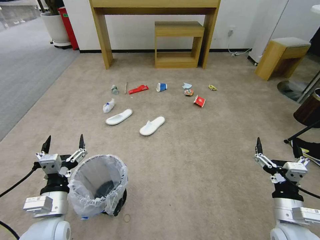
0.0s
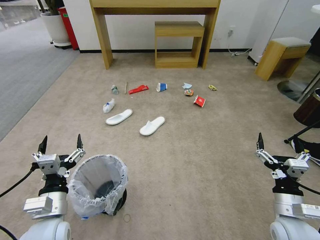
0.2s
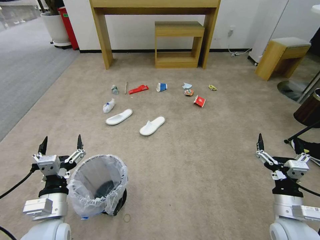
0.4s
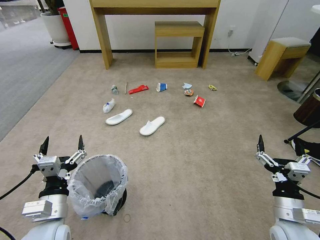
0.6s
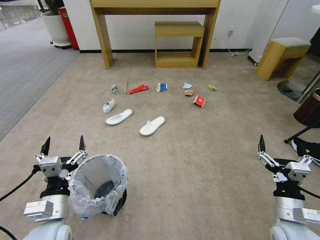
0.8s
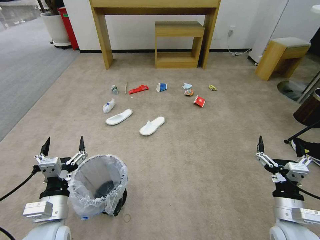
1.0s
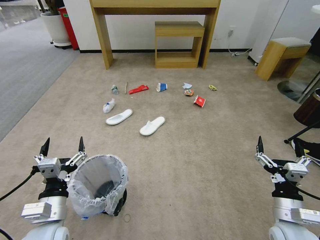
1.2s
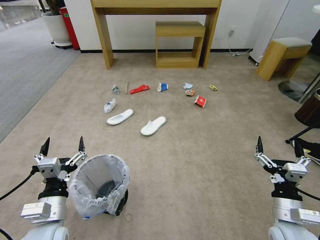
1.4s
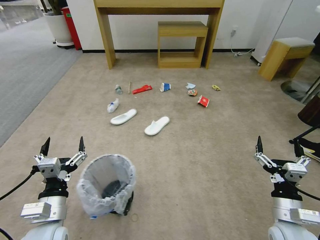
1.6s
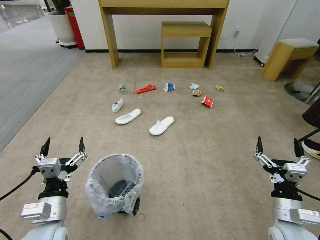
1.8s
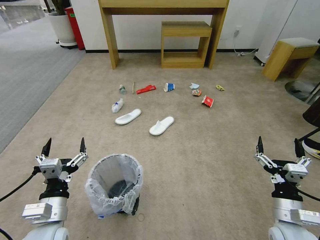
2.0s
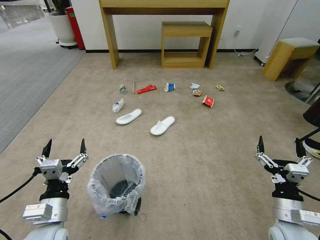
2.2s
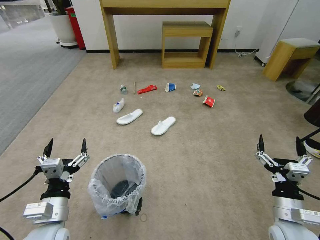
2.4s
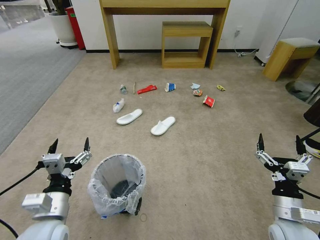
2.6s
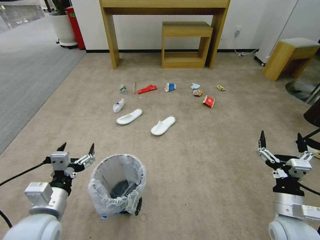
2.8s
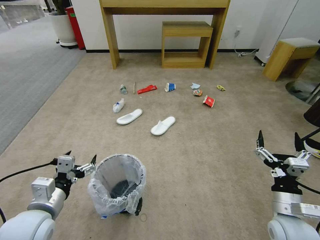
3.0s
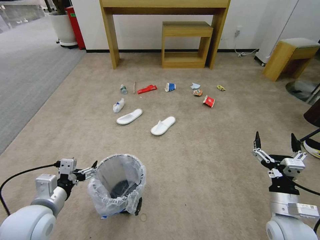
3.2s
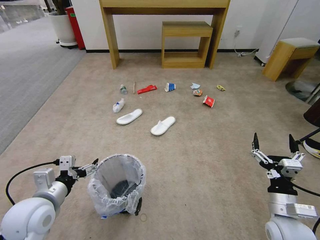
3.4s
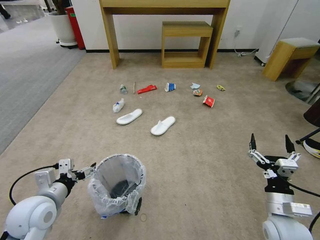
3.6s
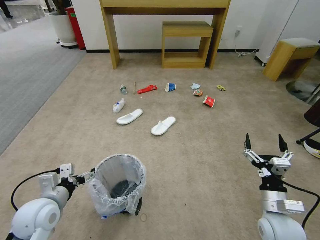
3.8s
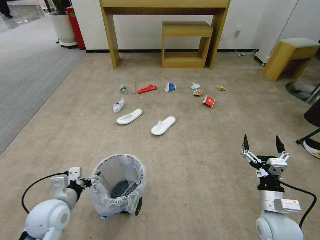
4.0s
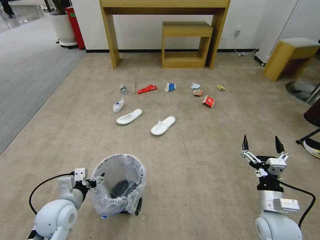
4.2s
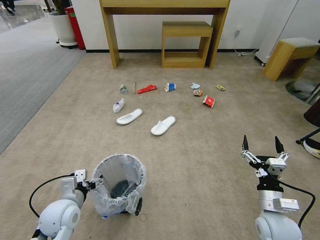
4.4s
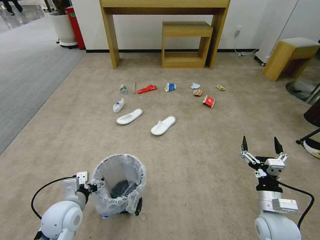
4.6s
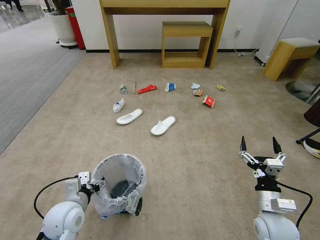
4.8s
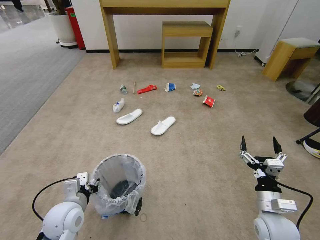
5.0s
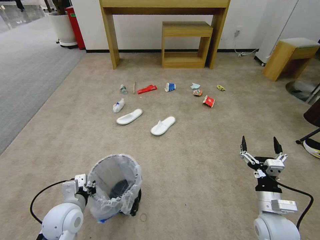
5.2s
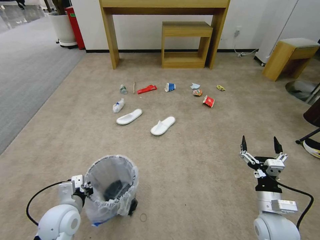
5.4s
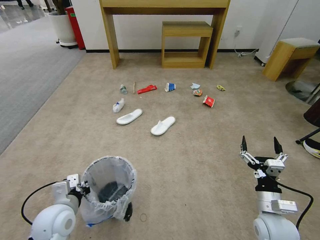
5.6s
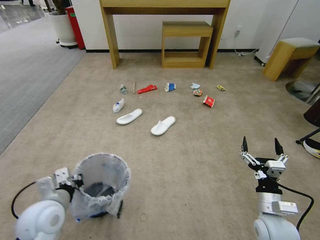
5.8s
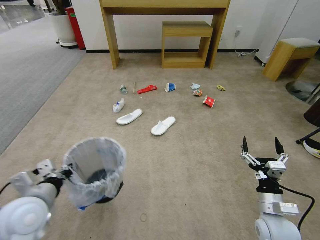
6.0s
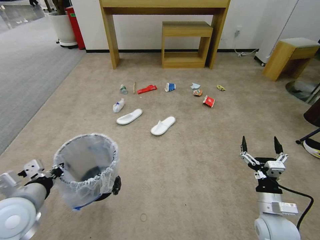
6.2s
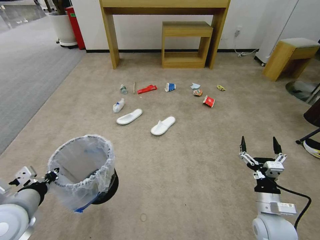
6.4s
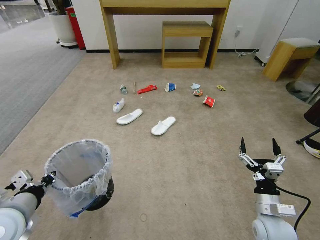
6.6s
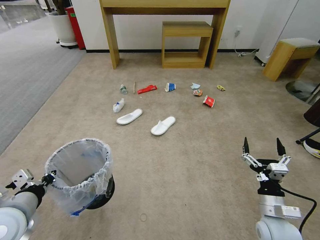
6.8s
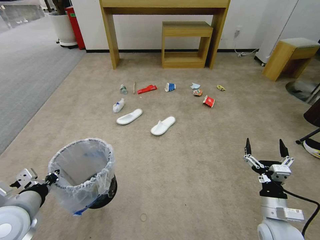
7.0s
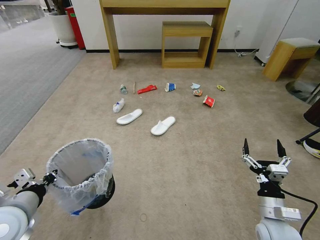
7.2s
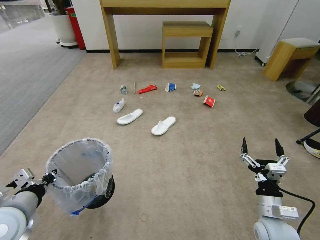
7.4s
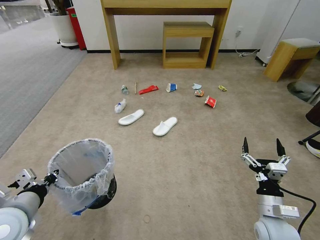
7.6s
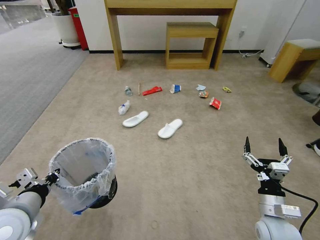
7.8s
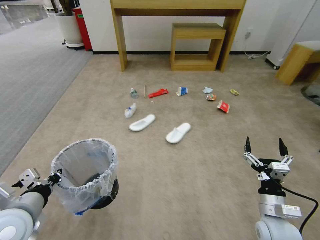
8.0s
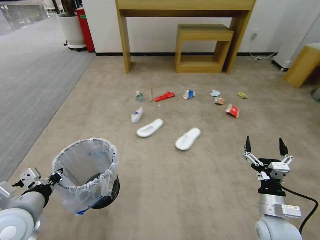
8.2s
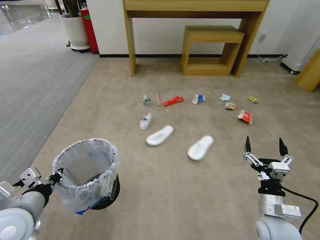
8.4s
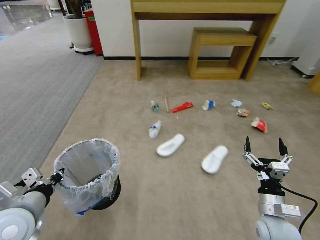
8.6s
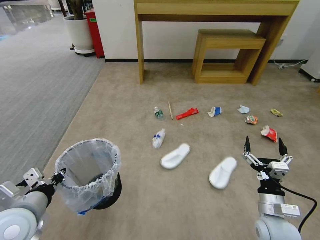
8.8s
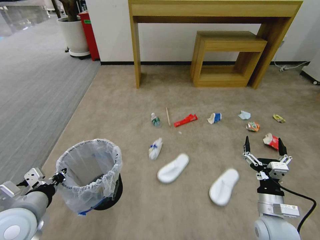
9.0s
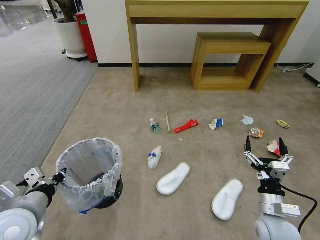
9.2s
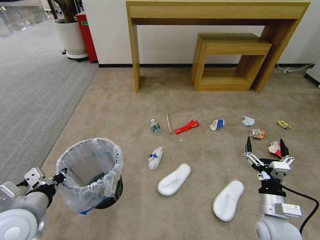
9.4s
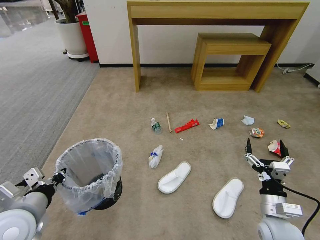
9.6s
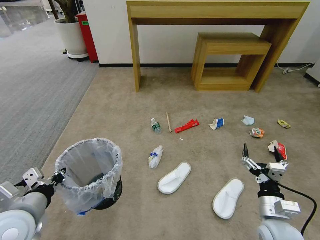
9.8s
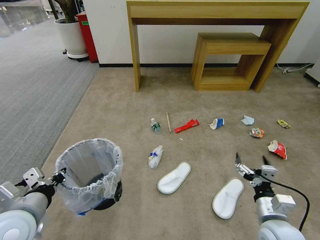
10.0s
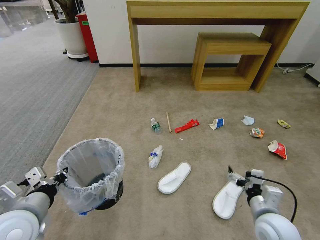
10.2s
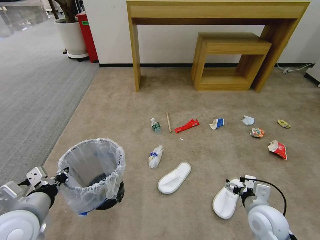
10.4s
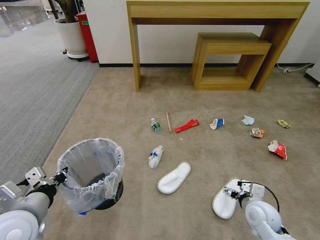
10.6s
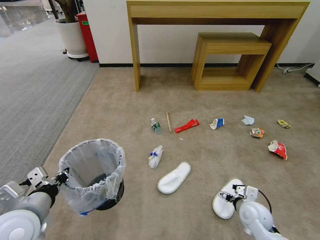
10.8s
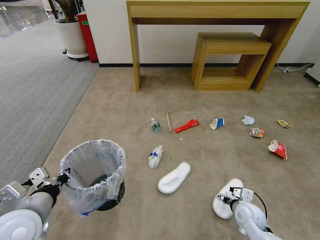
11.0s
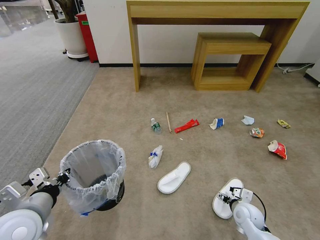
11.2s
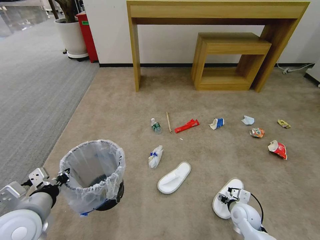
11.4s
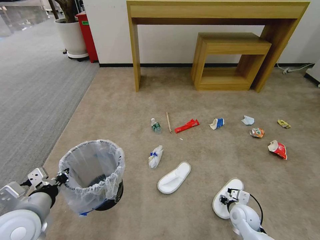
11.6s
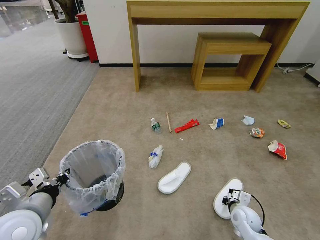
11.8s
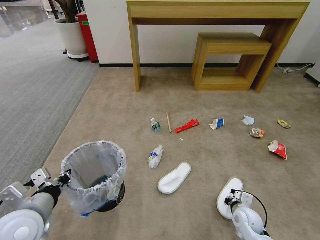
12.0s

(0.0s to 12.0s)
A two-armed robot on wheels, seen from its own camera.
Task of the whole recording: Pick up the trash bin and place the garbage on the floor into it.
3.0s - 4.4s: The left gripper shifts approximately 10 cm downward and forward.
4.4s - 6.0s: The left gripper shifts about 10 cm upward, and closes.
6.0s - 7.6s: There are only small adjustments of the grippers.
10.4s - 12.0s: The right gripper is displaced downward by some 15 cm, and closes its fingers.

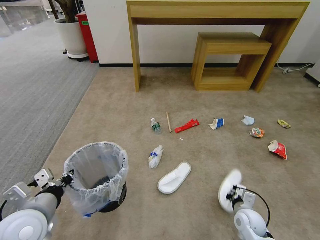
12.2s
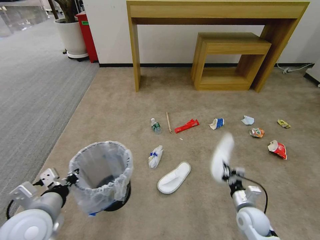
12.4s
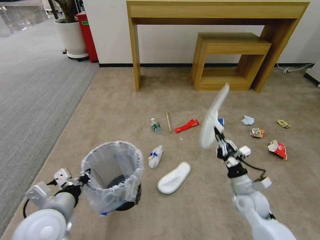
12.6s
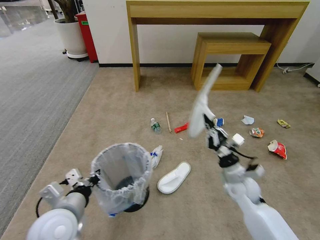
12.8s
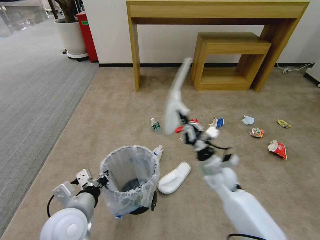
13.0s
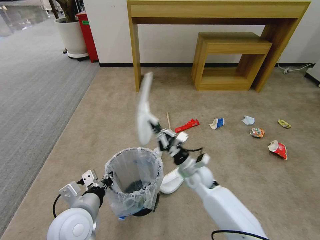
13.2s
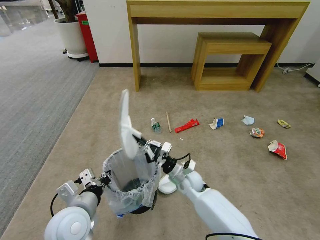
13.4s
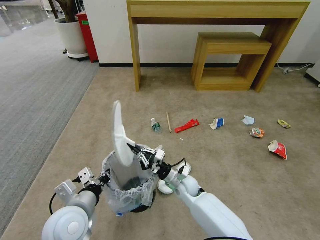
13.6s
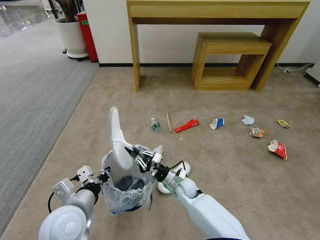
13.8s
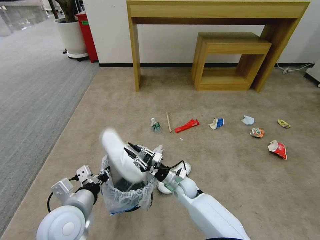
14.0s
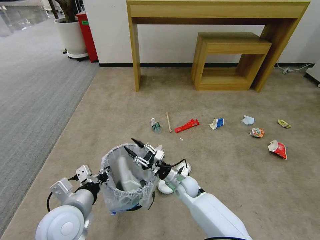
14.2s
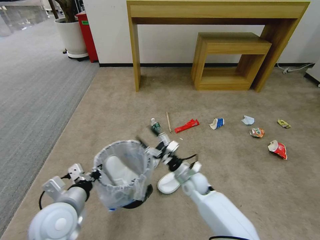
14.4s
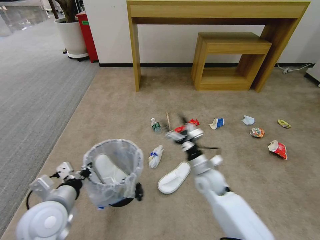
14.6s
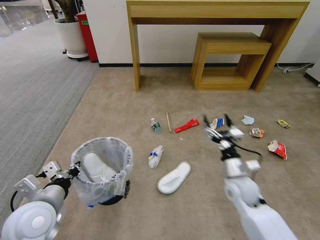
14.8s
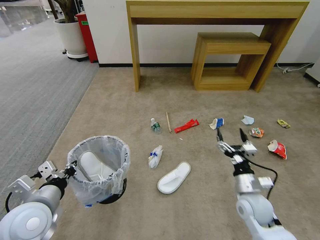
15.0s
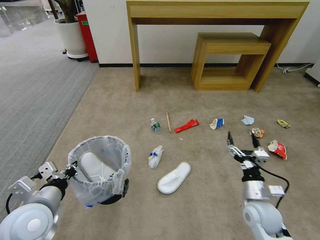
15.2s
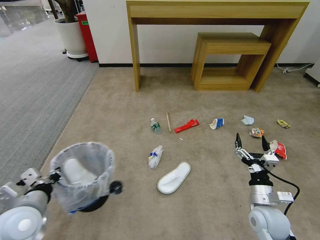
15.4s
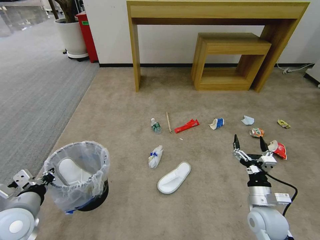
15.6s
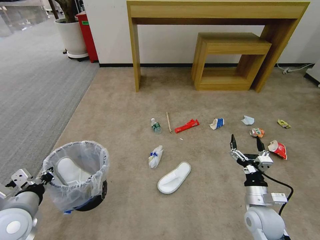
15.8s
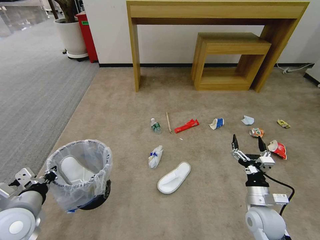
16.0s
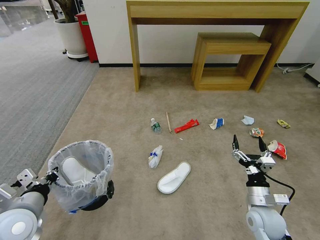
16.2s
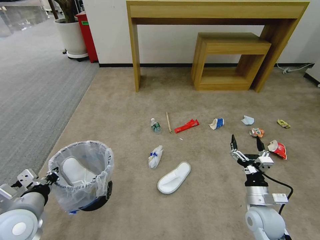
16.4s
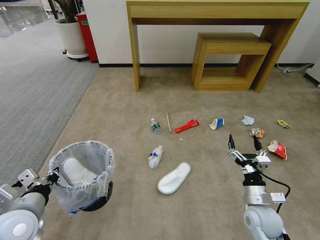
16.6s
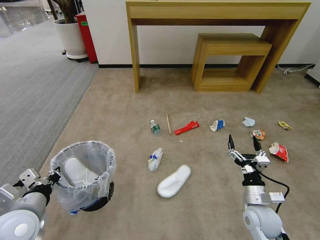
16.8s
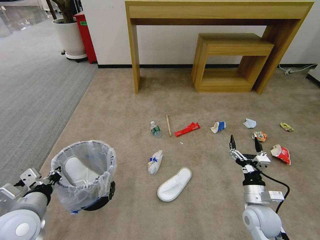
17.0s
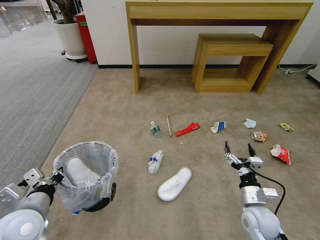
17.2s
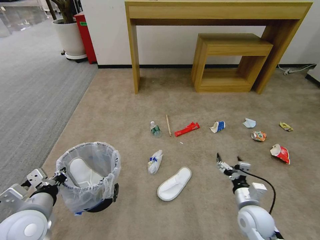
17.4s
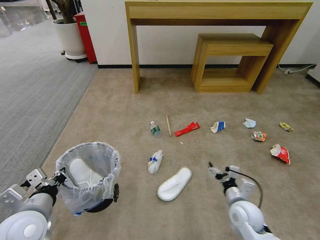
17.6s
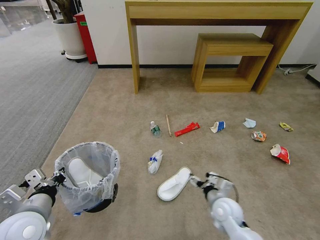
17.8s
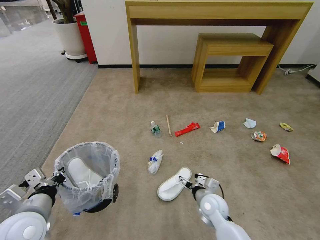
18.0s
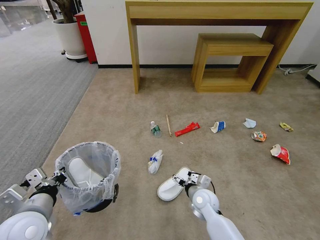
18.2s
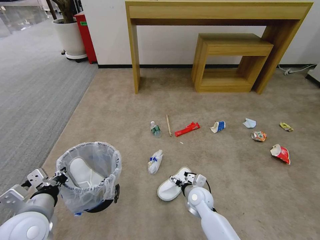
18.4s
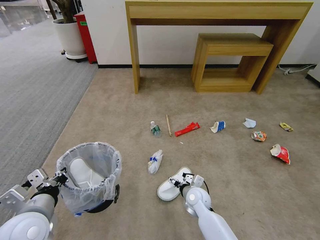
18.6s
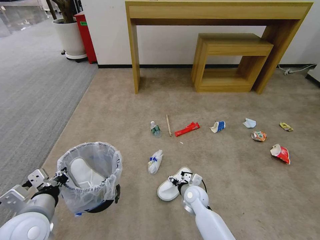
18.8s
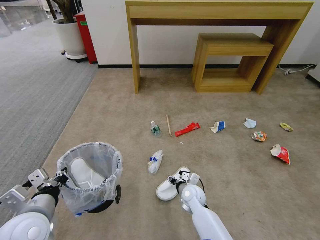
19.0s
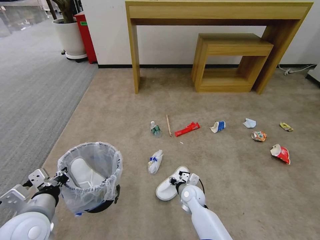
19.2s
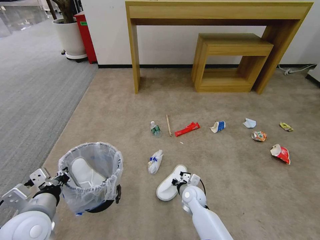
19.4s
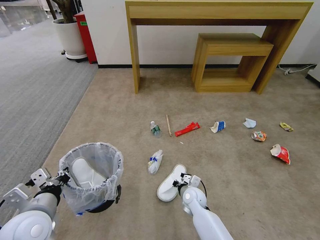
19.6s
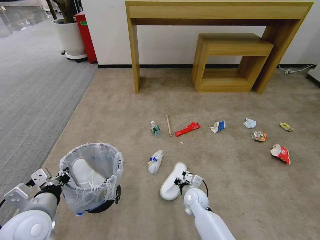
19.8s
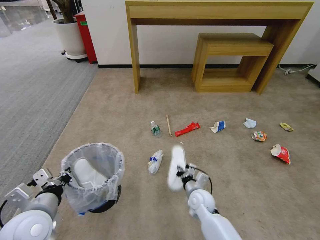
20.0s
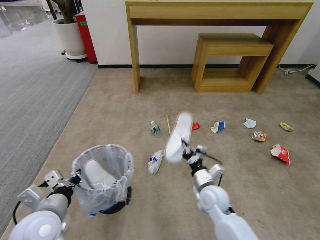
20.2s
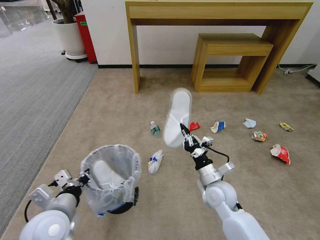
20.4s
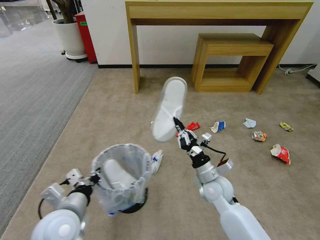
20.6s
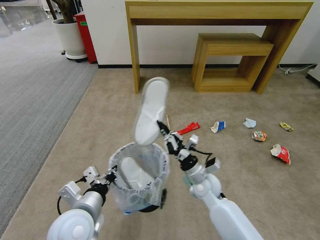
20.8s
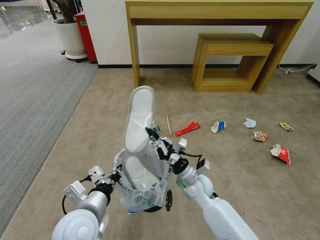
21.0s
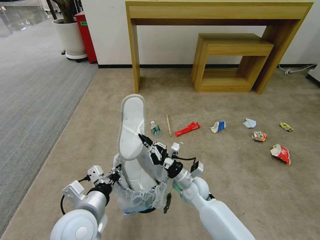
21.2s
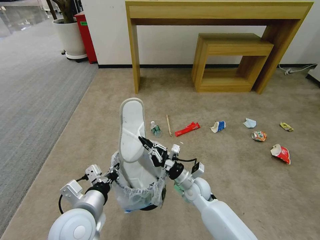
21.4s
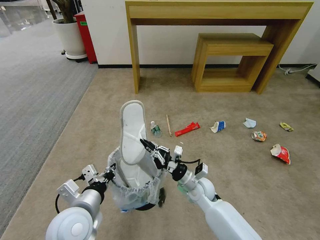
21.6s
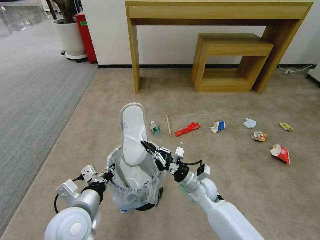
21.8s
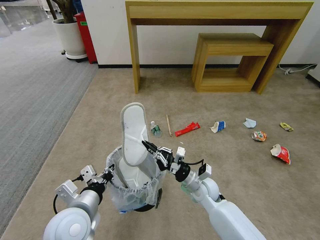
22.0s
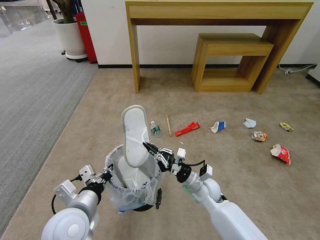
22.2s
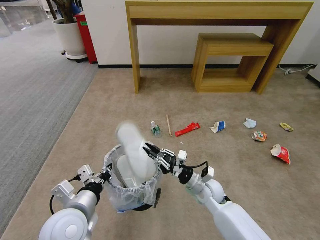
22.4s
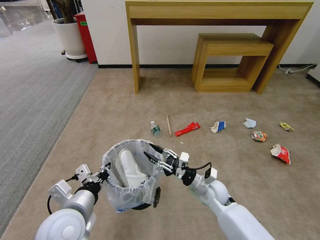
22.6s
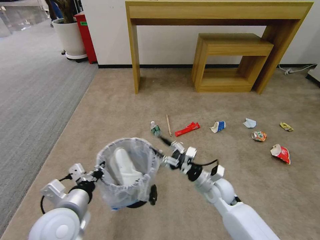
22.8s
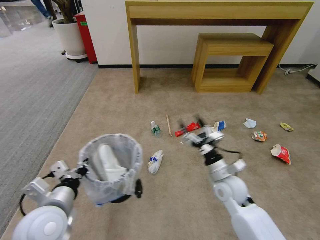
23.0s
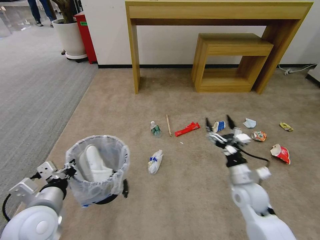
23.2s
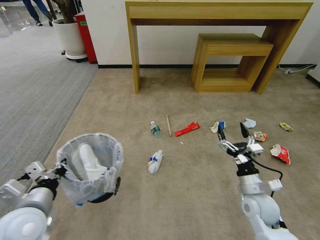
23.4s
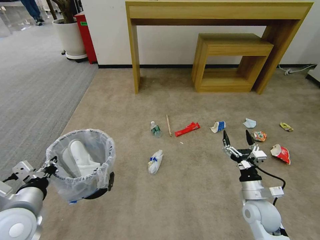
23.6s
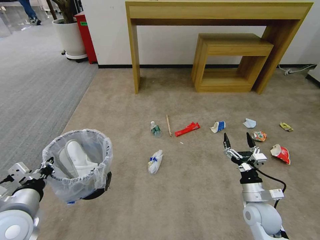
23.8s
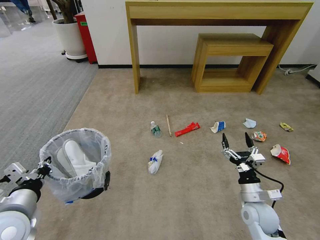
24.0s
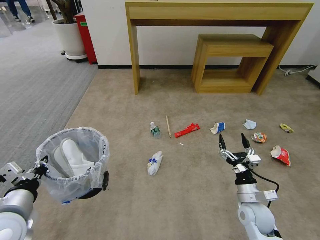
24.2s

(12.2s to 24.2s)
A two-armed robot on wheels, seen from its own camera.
Task of the whole recording: Pick up the trash bin and place the garbage on the floor into it.
12.2s - 13.8s: The left gripper moves to the right, approximately 10 cm, while the right gripper heads to the left and forward, covering about 25 cm.
13.8s - 15.2s: The right gripper goes approximately 25 cm to the right and backward, and opens its fingers, while the left gripper shifts roughly 10 cm to the left.
15.2s - 16.6s: There are only small adjustments of the grippers.
16.6s - 18.2s: The right gripper moves to the left, forward and downward, roughly 20 cm.
18.2s - 19.8s: The right gripper shifts by approximately 5 cm, and closes its fingers.
19.8s - 21.2s: The right gripper travels upward by roughly 10 cm. Meanwhile the left gripper shifts some 10 cm to the right.
21.2s - 22.6s: The right gripper moves to the right, about 5 cm, and opens its fingers.
22.6s - 24.2s: The left gripper travels to the left by some 10 cm; the right gripper moves to the right and backward, approximately 15 cm, and opens.
